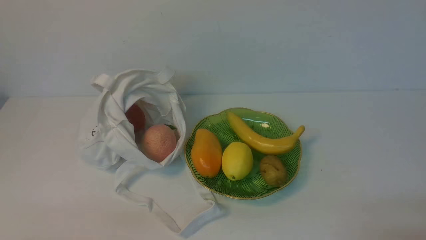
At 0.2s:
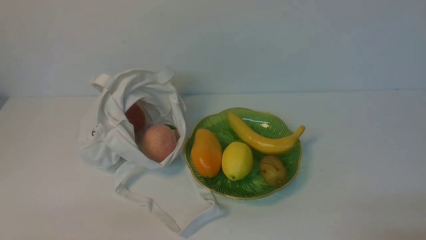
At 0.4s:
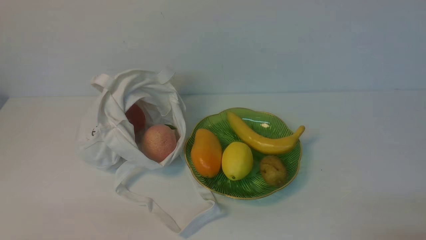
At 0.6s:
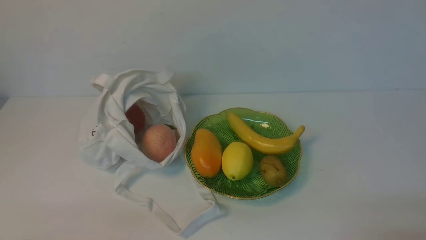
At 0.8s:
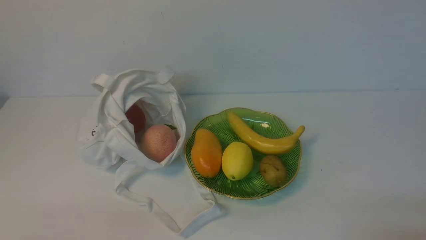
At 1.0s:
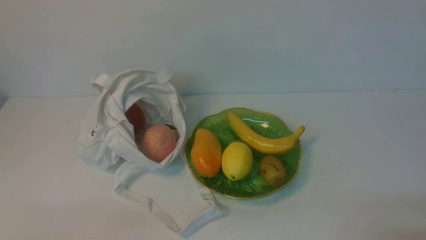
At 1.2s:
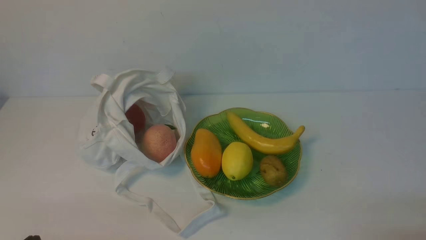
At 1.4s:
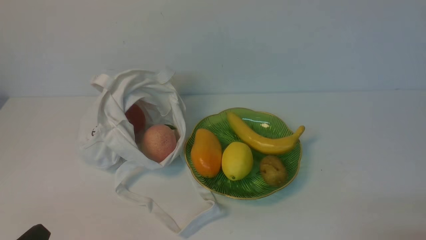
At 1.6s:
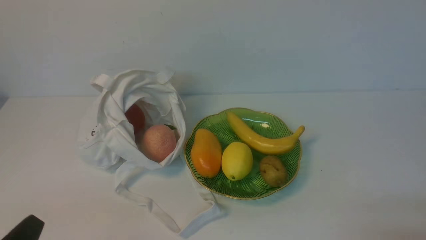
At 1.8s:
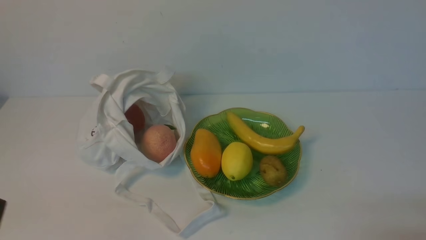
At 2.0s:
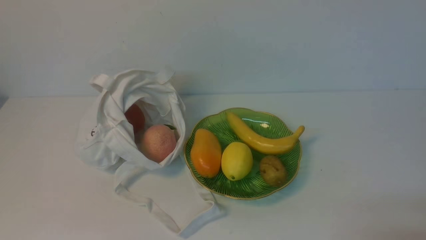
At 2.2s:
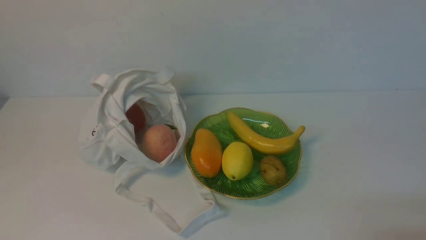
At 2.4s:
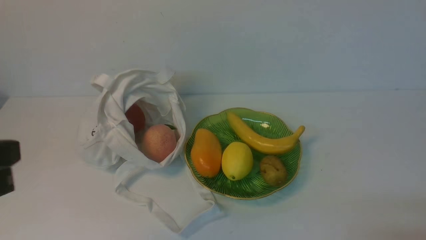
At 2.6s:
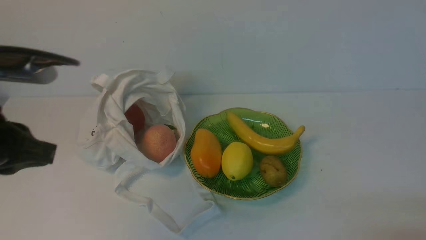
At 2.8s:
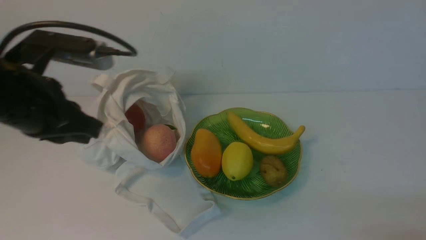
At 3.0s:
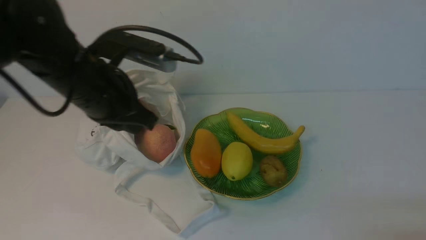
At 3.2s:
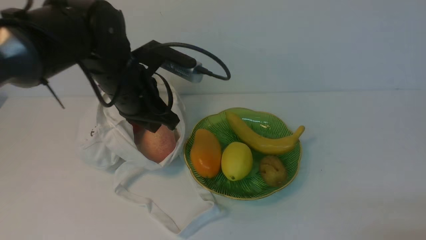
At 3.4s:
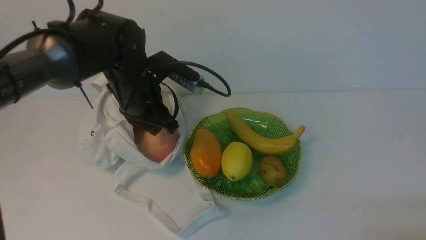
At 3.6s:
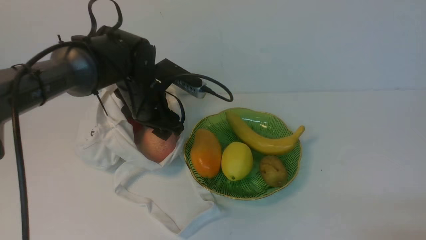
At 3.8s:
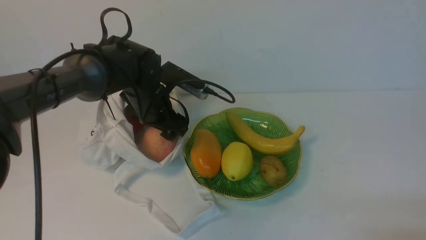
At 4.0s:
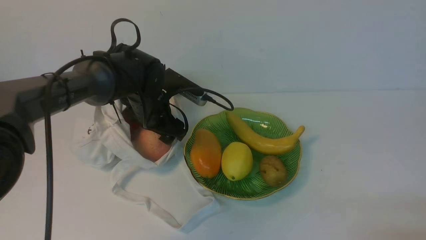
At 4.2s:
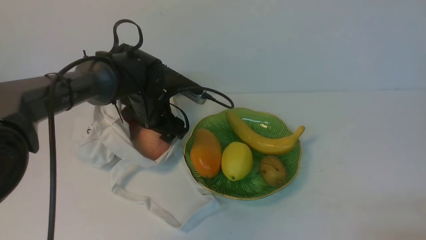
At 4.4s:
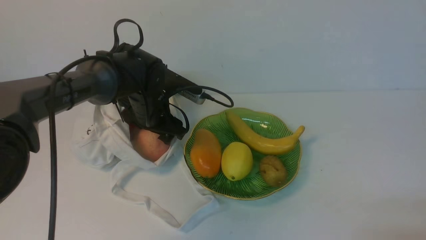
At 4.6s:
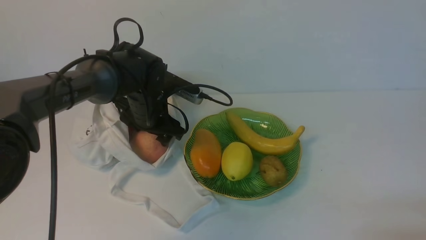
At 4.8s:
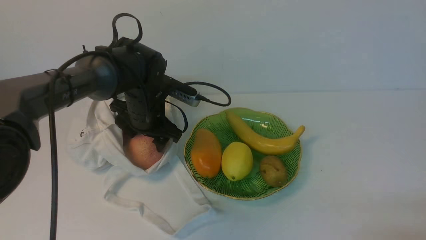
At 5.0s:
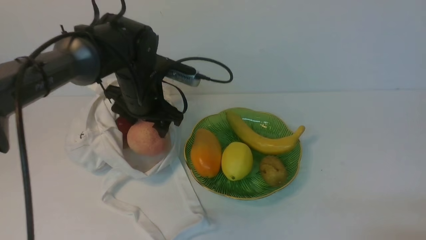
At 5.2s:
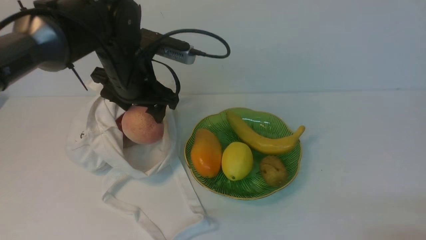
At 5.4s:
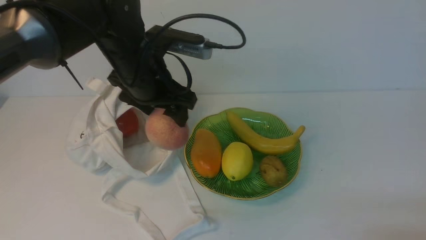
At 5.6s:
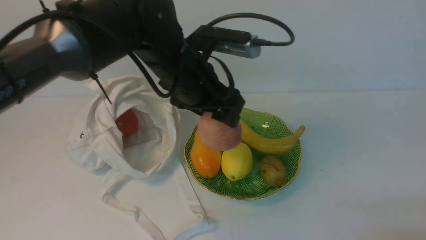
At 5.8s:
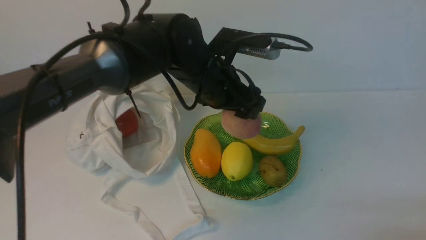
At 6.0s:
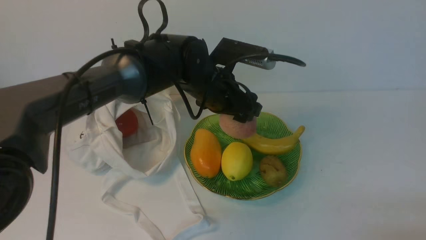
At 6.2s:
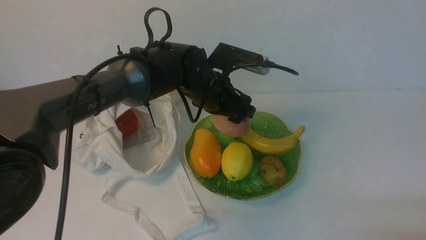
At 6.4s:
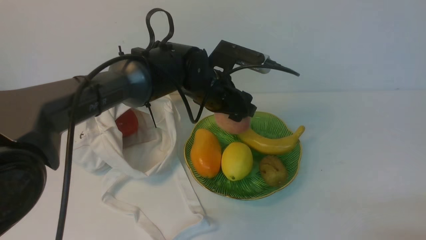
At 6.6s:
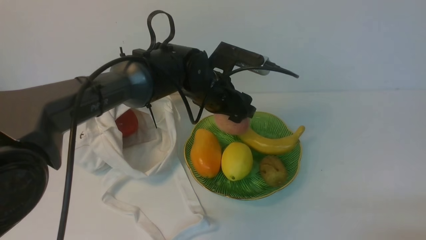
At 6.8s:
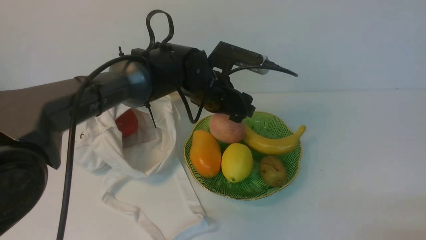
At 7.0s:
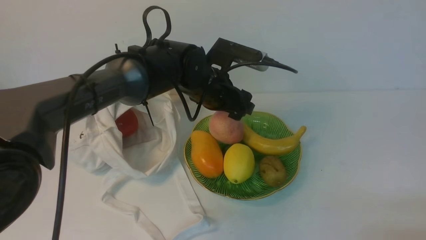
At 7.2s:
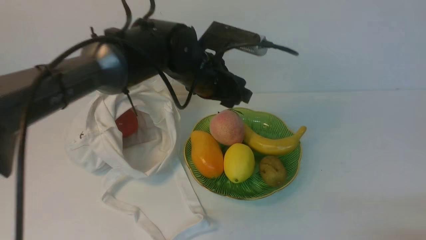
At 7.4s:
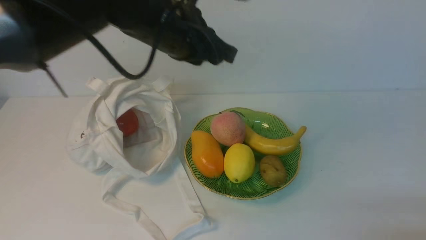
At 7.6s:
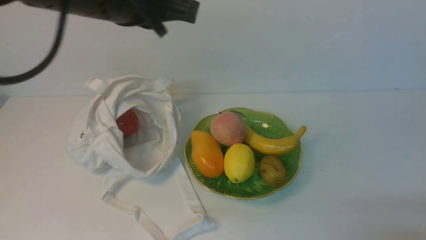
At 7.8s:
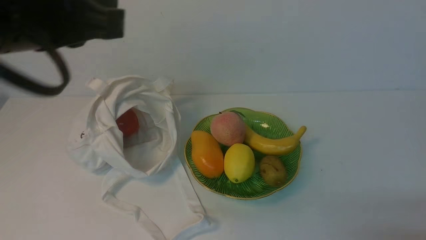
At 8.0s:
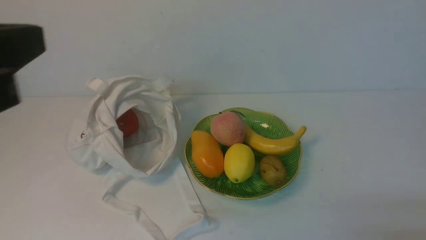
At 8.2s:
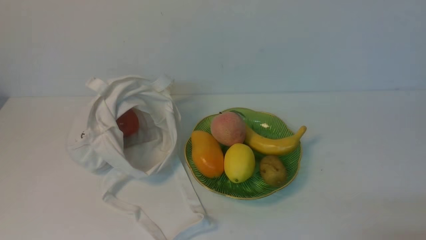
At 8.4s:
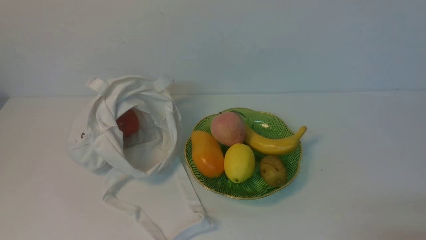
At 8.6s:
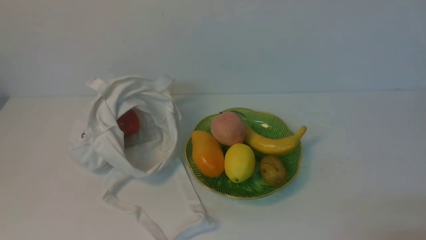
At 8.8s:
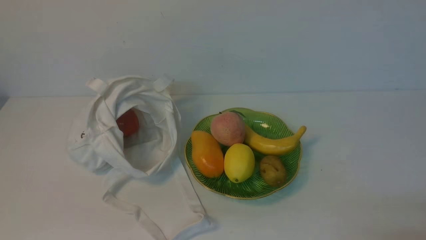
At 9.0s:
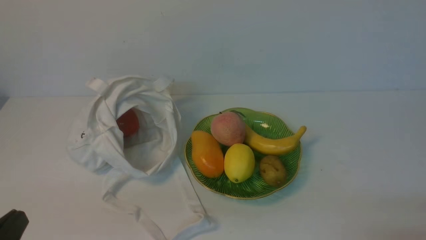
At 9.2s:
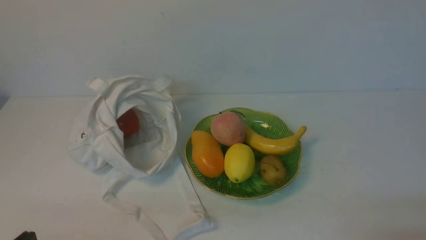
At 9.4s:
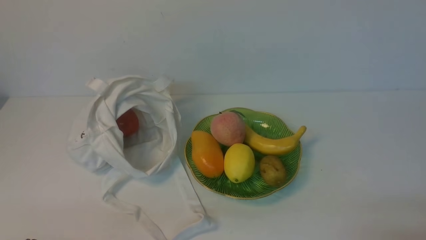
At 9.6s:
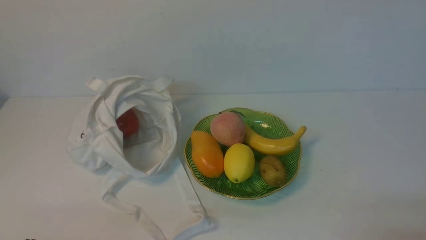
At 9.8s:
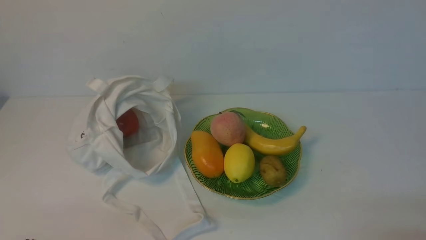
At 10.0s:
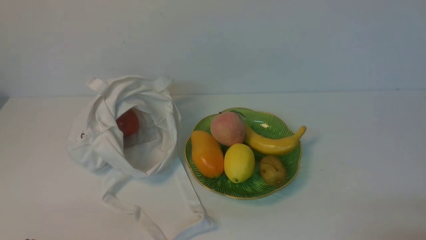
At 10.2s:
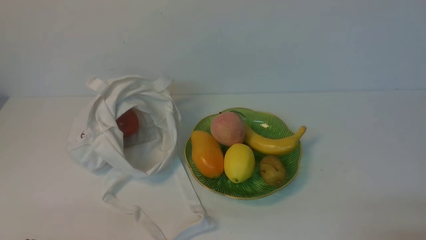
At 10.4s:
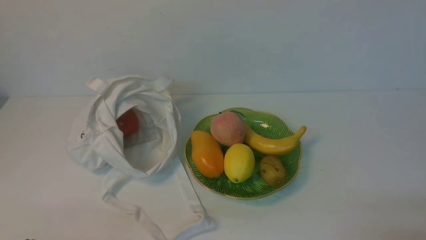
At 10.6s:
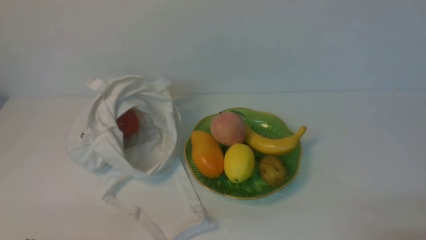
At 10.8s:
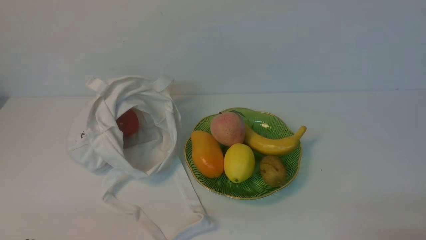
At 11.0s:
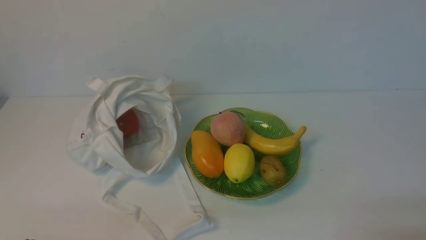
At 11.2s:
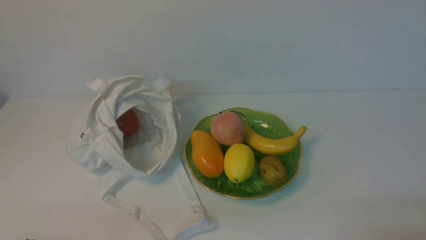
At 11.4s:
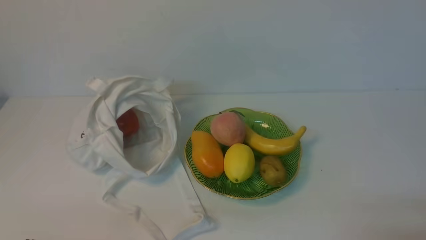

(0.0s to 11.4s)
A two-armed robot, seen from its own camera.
Step, 0.0s - 4.8s: use the left arm to grab a peach from the bag.
Step, 5.0s - 7.0s: use the left arm to put the peach into the empty plate on the right.
1.4s - 2.8s: The left gripper goes roughly 25 cm upward and forward.
2.8s - 4.2s: The left gripper is displaced forward, downward and to the right by roughly 30 cm, and opens up.
4.2s - 5.6s: The left gripper heads upward and backward, covering some 10 cm.
7.2s - 8.6s: The left gripper moves backward and to the left, approximately 50 cm, and closes.
10.0s - 11.4s: Neither gripper changes place.
